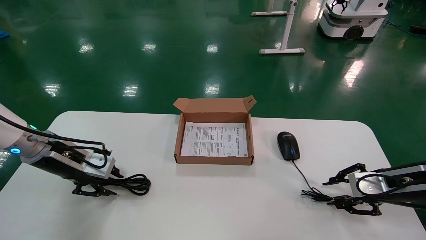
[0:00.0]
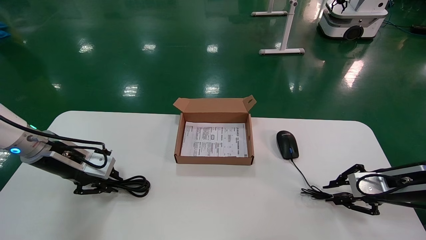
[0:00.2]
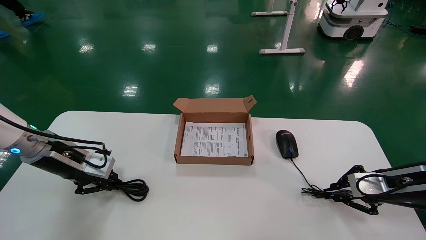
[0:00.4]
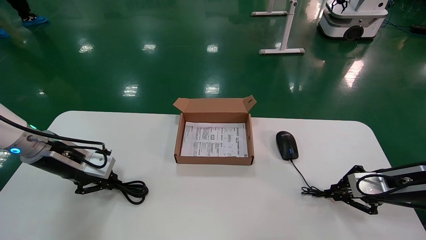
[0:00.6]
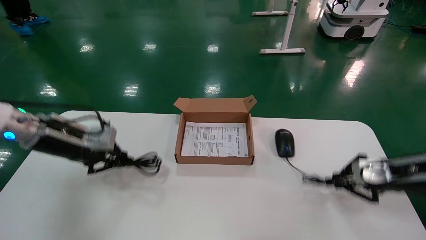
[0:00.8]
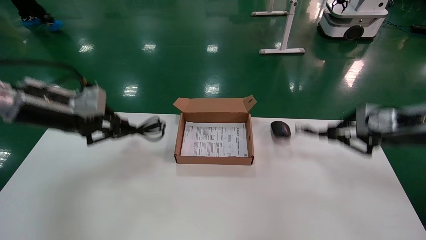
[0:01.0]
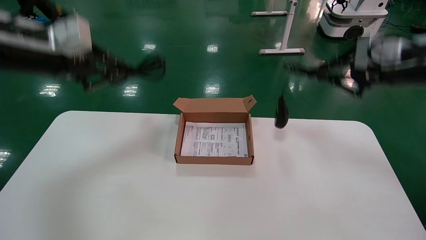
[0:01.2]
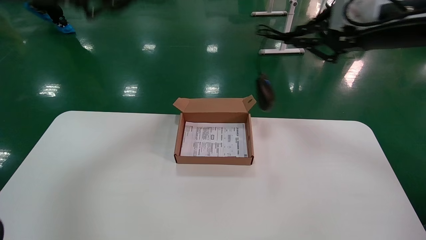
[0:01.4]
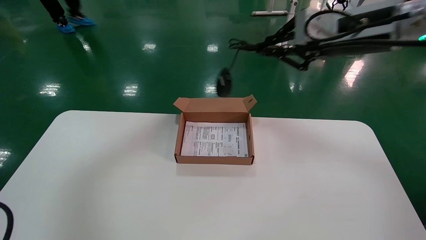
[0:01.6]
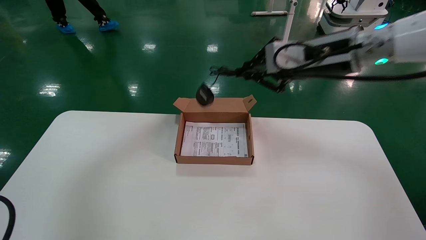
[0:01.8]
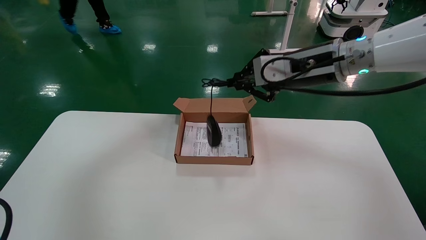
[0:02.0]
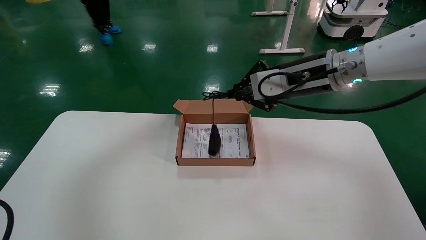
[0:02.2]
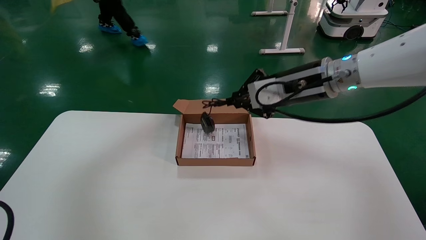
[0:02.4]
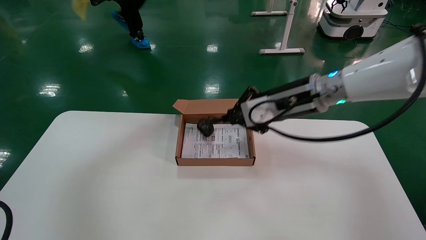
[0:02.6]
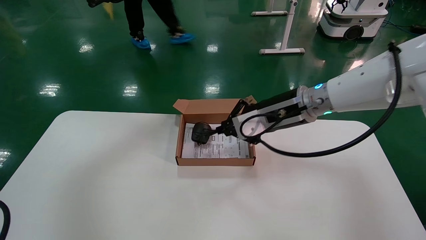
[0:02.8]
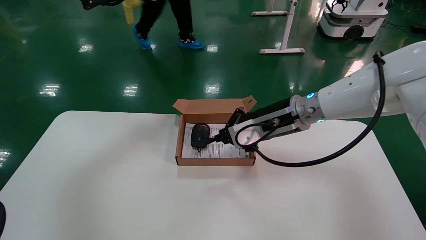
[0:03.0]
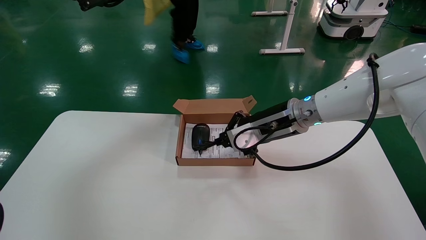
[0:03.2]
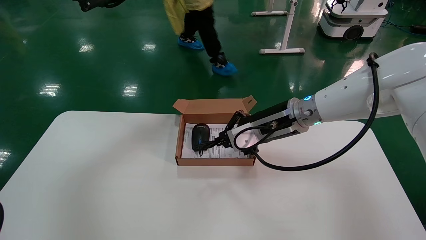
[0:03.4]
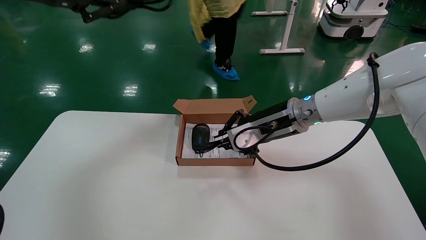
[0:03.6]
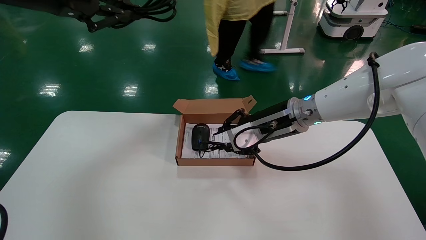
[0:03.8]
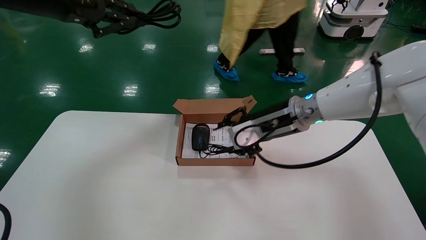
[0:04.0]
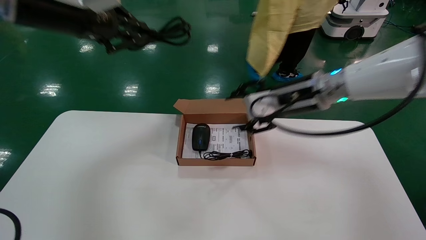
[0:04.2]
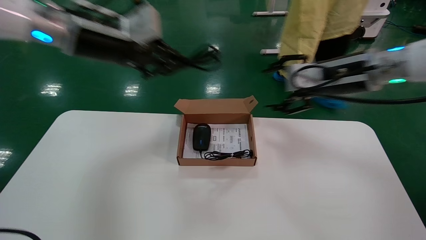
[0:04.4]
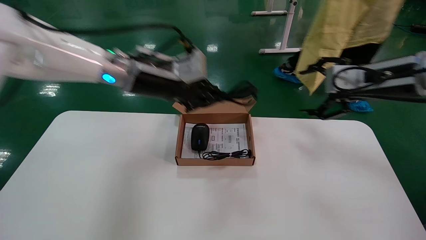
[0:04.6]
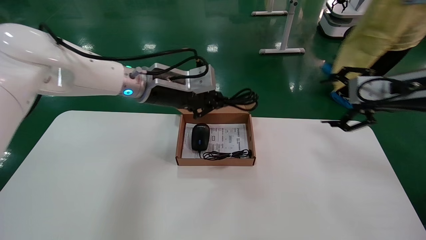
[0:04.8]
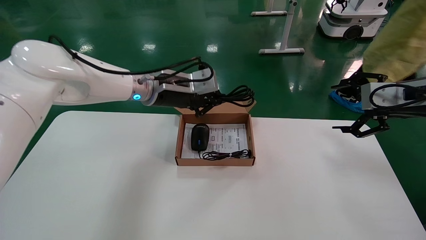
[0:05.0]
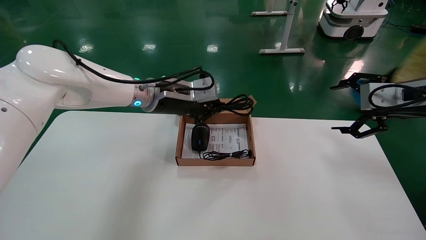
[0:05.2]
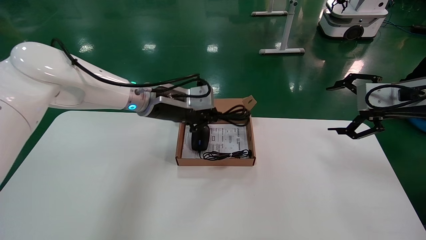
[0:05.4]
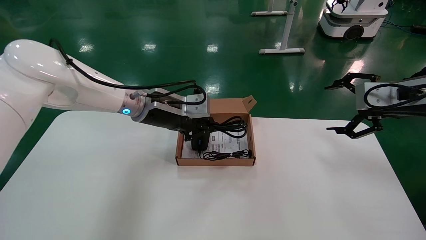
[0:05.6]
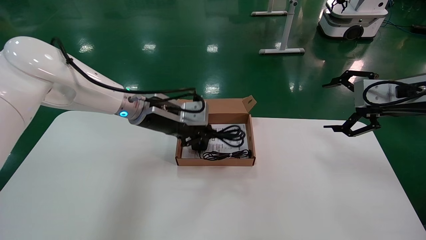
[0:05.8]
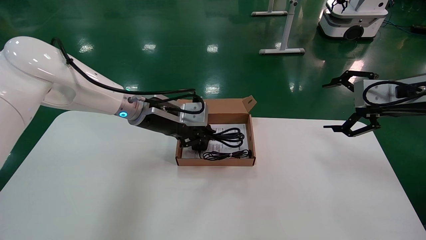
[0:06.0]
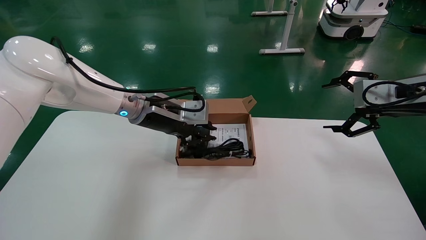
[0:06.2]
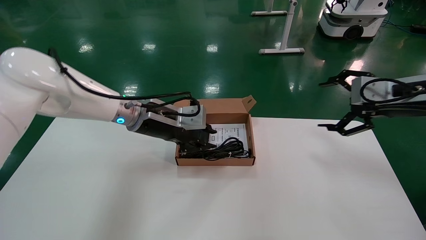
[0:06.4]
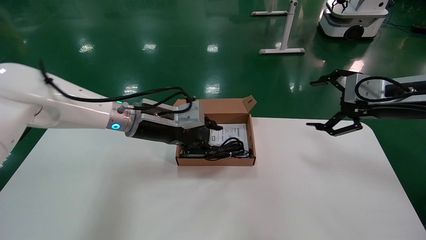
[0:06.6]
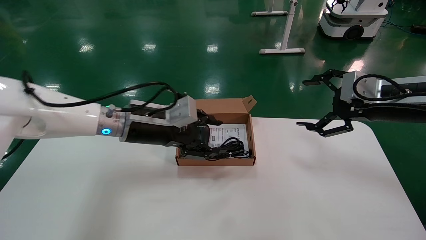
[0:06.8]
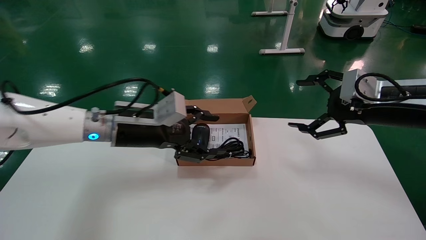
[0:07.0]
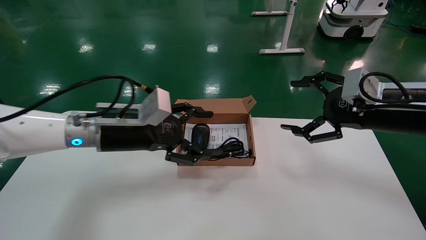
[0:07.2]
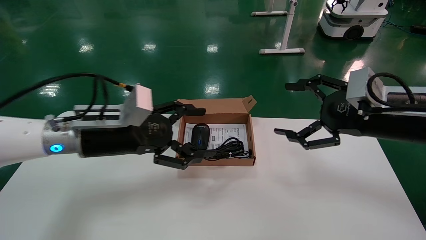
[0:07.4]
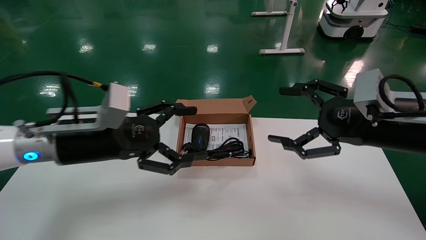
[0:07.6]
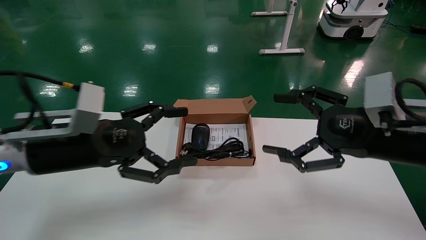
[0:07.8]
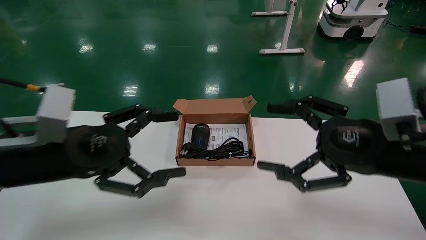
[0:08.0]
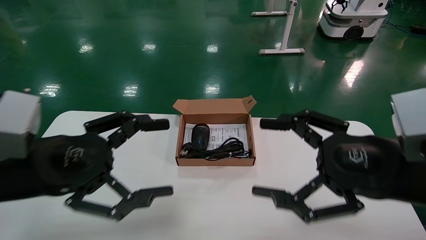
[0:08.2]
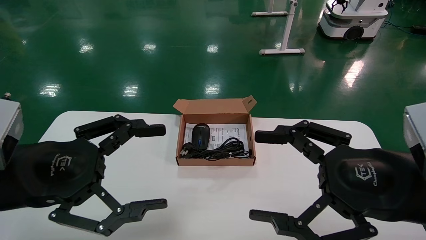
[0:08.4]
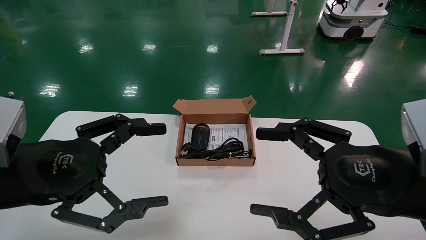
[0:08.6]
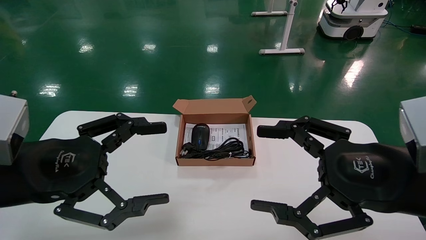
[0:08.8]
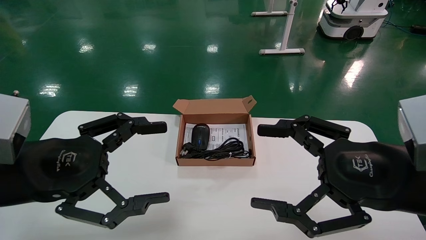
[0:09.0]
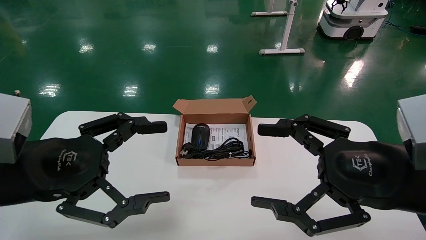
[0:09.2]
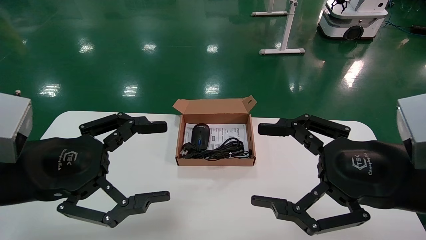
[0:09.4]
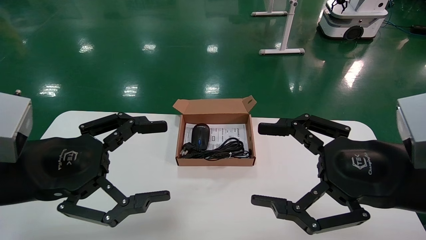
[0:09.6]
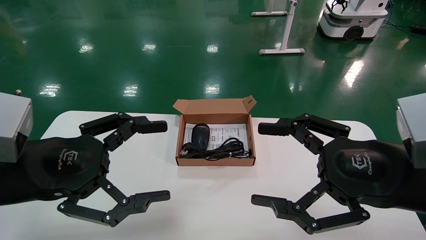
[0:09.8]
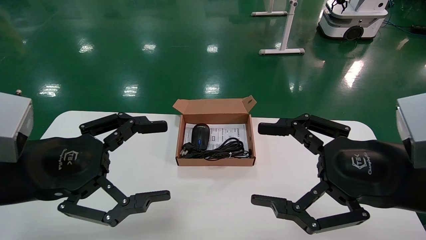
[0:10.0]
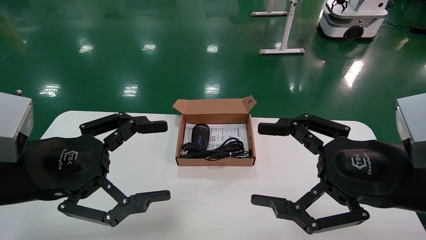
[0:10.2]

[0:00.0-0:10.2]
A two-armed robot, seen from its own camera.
Step, 0:00.4 to 0:06.2: Place the mouse and power cord into the box.
0:00.0 to 0:01.4: The right gripper travels upward and to the left by roughly 25 cm, and closes up; the left gripper moves upward, some 30 cm, and closes its fingers.
0:01.4 to 0:03.0: The right gripper travels to the left and downward by some 20 cm.
0:03.0 to 0:04.4: The right gripper shifts approximately 15 cm to the right and upward, and opens its fingers; the left gripper heads downward, to the right and forward, covering about 15 cm.
0:04.4 to 0:05.8: The left gripper moves downward and to the right, about 15 cm, while the right gripper travels to the right by some 10 cm.
0:05.8 to 0:07.2: The right gripper is displaced to the left by some 5 cm, while the left gripper goes roughly 10 cm backward and to the left, and opens its fingers.
0:07.2 to 0:08.8: Both grippers travel together backward and to the left, about 15 cm.
0:08.8 to 0:10.2: Both grippers stay put.
